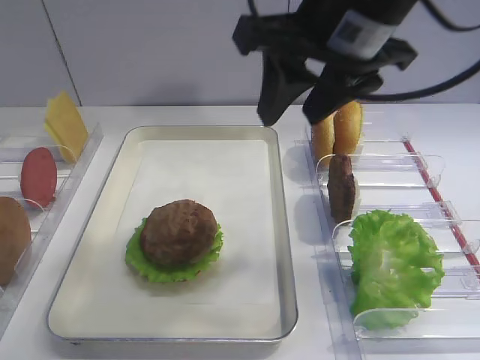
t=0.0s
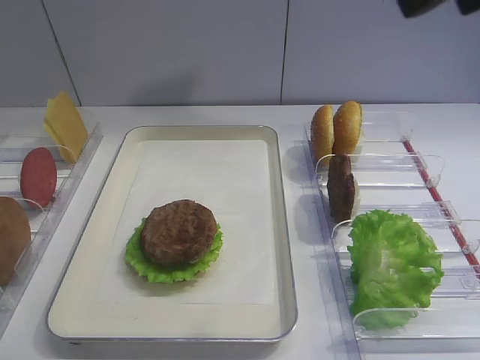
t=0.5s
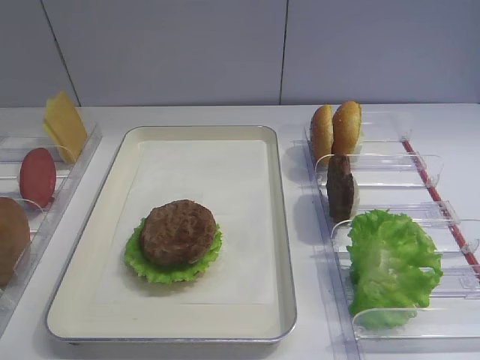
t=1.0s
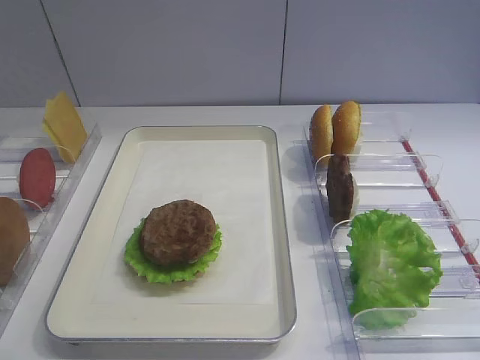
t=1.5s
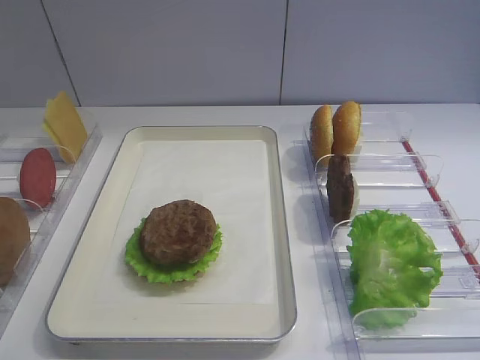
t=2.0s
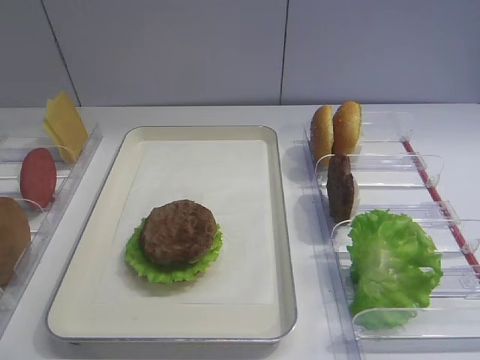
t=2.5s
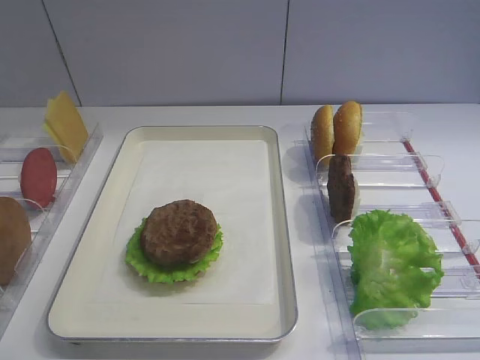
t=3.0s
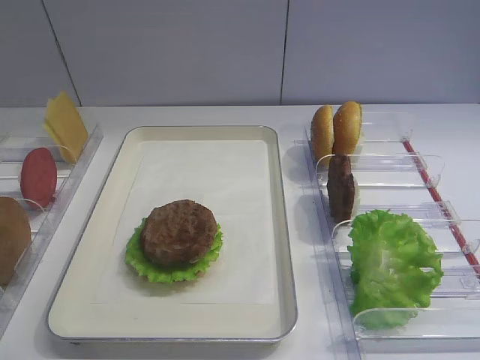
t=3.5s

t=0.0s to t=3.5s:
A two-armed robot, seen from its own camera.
t=0.0s to t=2.0s: The right gripper heads backward and to the right, covering roughly 35 cm.
t=2.0s to t=3.5s: The two grippers keep their place.
